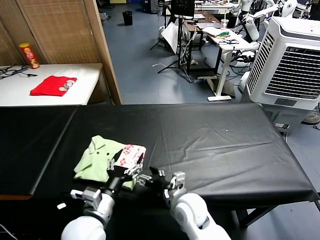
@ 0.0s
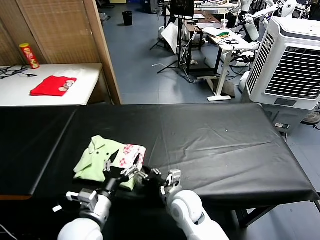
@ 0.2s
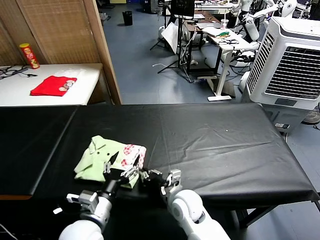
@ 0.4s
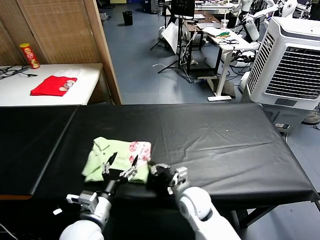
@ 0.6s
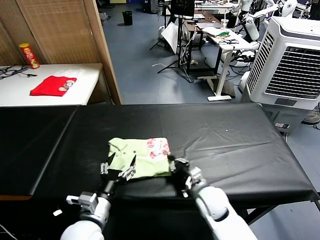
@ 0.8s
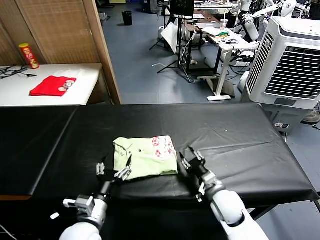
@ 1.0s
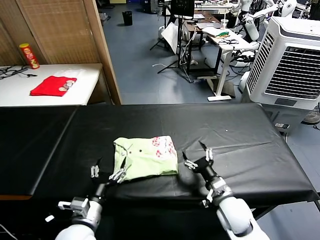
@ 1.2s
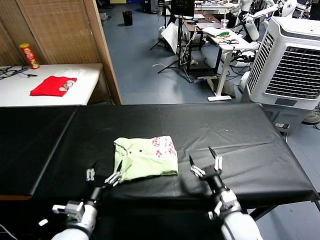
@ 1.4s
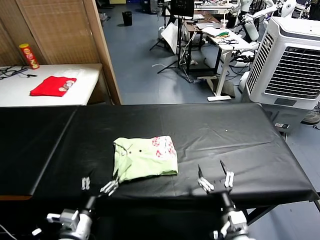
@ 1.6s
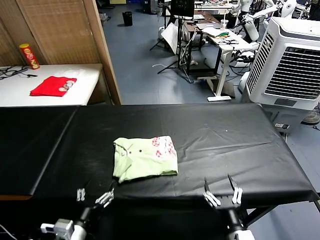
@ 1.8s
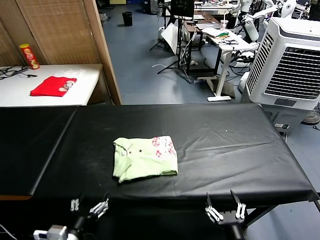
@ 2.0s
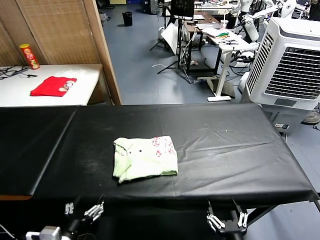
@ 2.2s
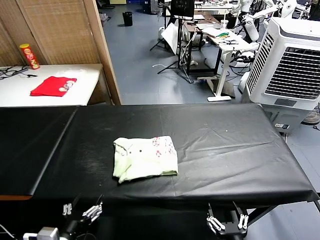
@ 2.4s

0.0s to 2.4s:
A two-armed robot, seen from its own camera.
Task of the whole recording: fold and organize the clothes.
Step, 0.0s to 0.8s: Drag the clothes to the center of the table.
0.0s to 1.2s: The right gripper travels to the right by roughly 15 cm, and closes, then opens again.
1.2s to 2.4s: The right gripper shifts about 20 cm backward, while the left gripper shifts approximately 10 cm backward and to the left.

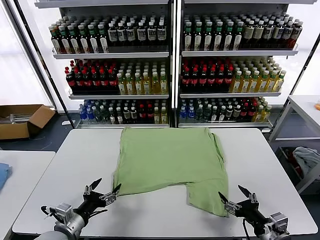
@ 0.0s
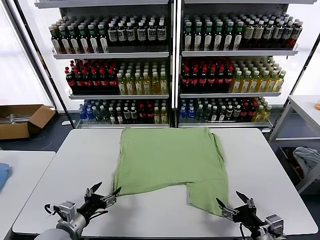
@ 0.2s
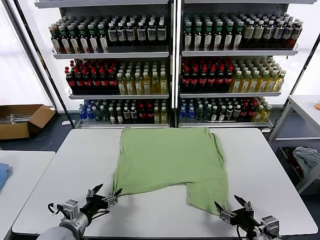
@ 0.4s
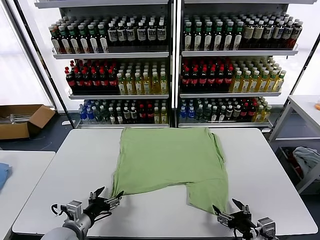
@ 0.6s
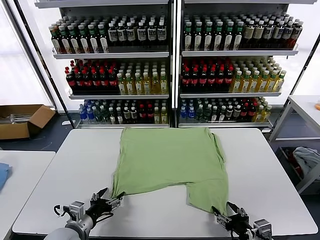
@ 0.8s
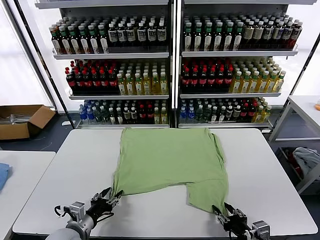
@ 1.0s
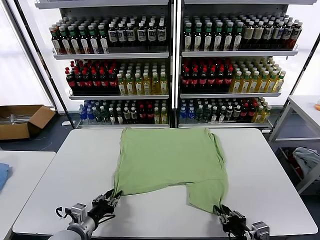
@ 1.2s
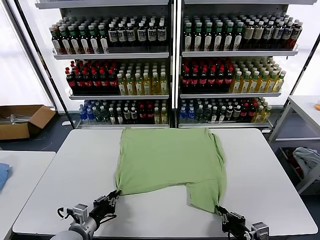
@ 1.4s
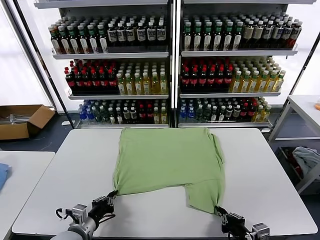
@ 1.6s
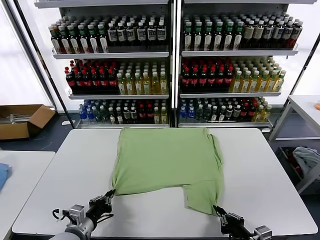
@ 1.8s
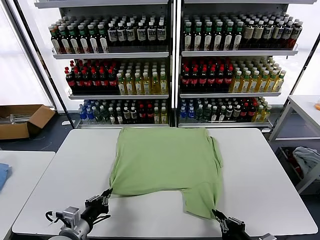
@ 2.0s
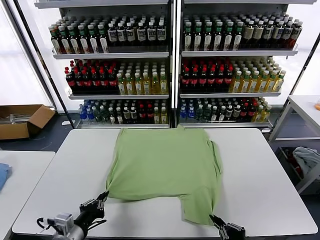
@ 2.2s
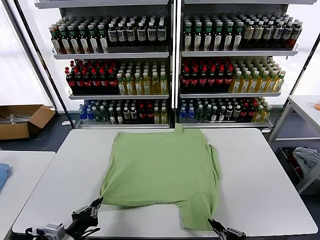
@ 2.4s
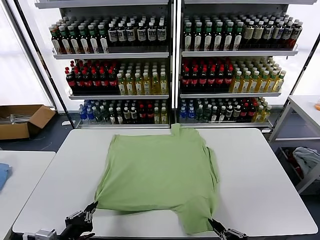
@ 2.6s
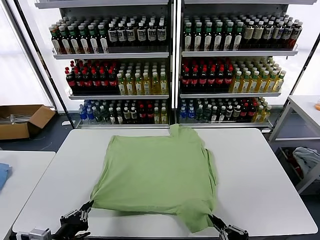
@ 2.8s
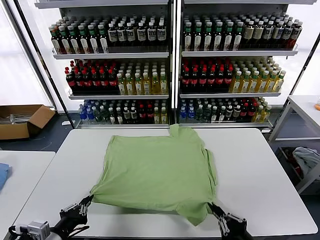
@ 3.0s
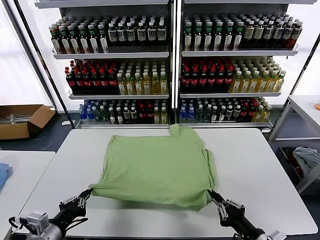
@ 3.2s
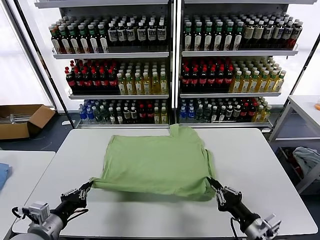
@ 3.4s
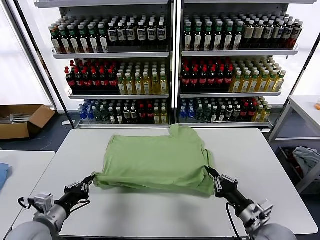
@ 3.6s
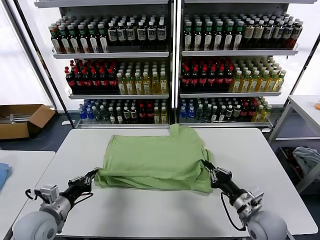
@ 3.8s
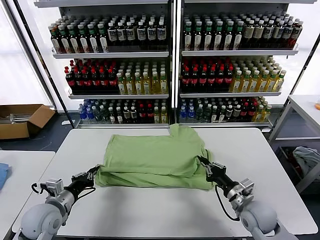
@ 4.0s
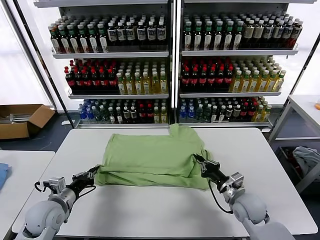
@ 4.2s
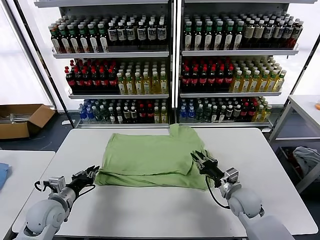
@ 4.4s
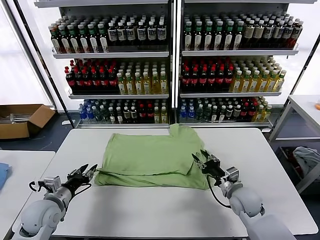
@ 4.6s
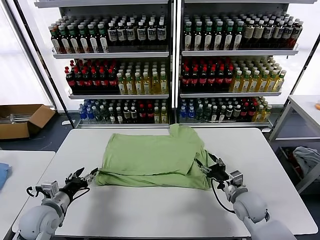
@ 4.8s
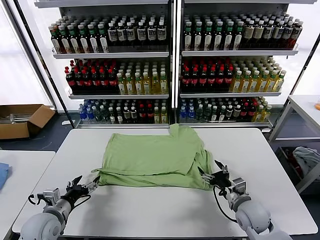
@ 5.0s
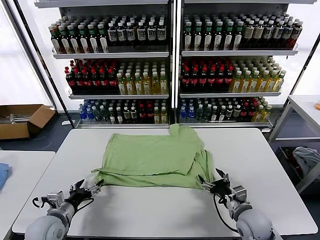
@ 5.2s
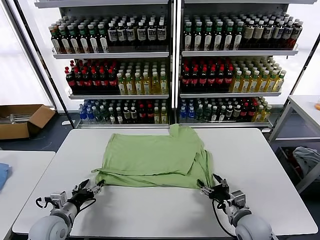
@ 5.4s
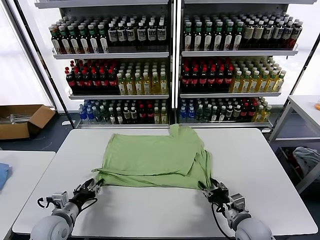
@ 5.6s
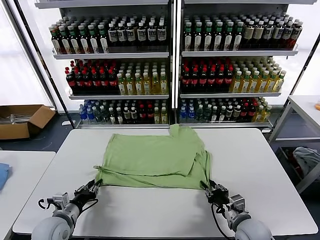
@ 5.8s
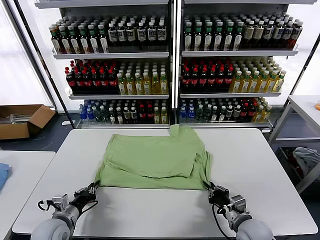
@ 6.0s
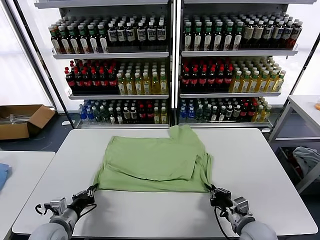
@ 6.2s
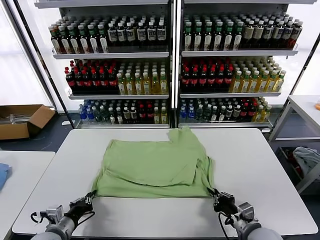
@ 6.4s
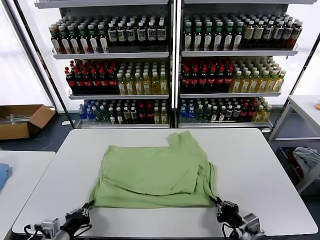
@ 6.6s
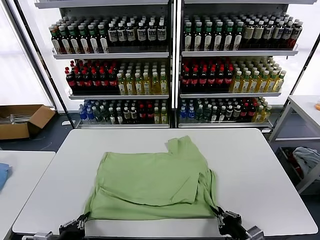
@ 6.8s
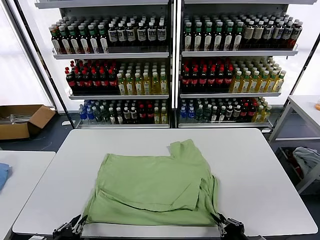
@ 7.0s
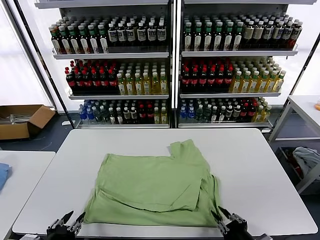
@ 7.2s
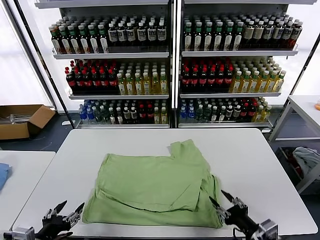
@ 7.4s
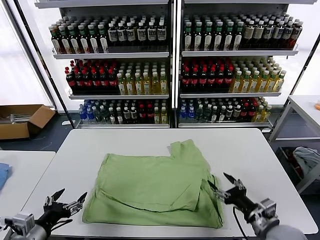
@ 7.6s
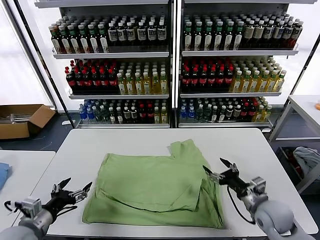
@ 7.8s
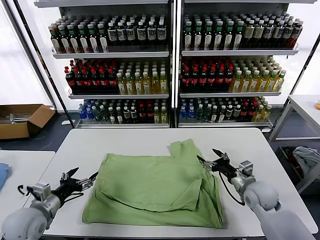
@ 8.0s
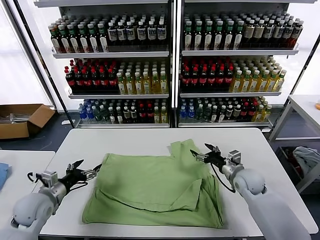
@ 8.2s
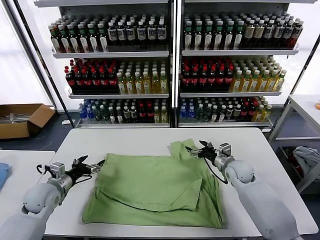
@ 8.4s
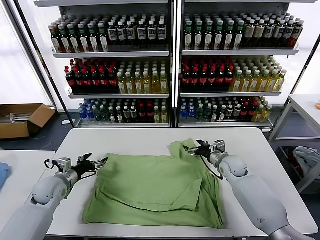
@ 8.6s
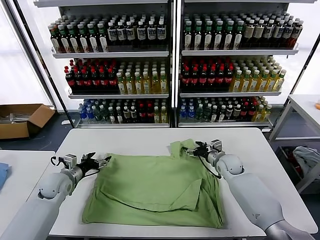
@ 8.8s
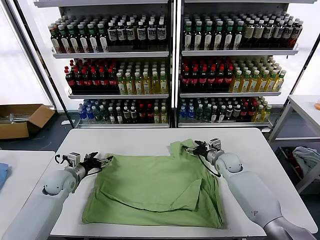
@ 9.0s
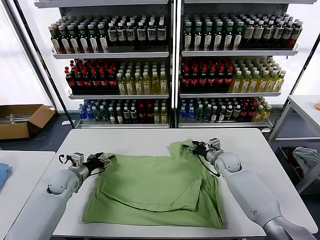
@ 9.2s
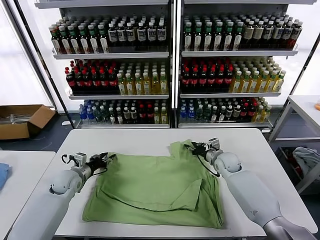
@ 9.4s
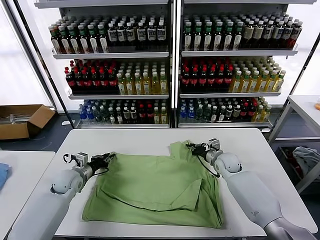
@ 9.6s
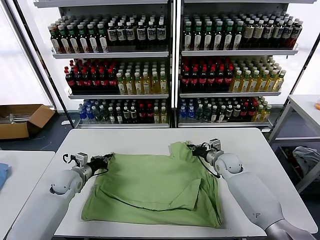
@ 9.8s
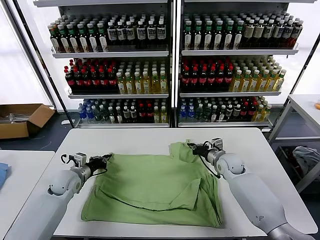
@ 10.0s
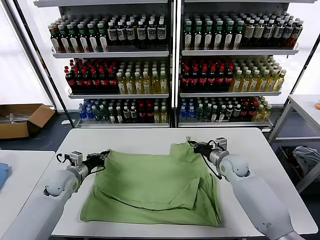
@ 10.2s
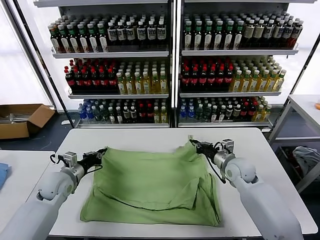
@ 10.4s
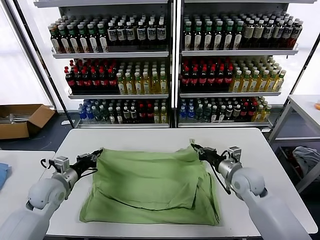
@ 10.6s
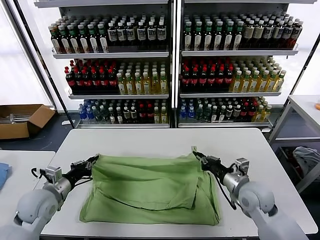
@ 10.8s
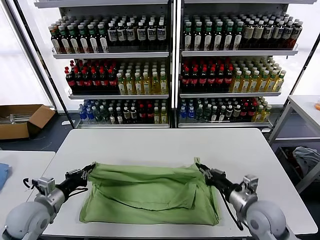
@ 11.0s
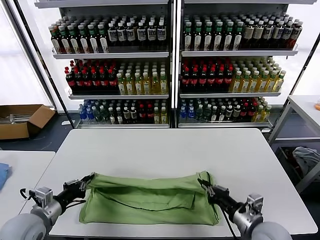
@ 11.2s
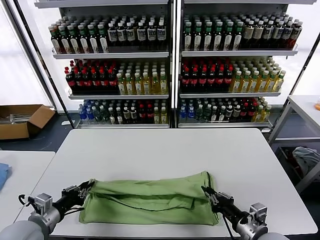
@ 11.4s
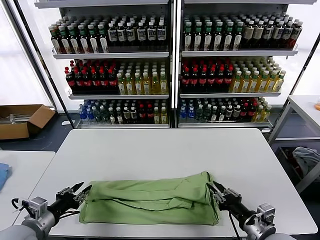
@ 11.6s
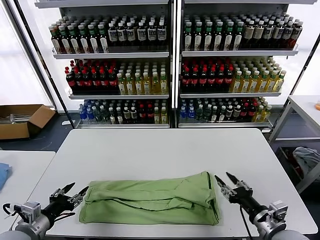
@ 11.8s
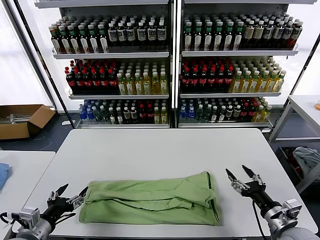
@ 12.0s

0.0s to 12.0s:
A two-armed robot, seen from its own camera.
Task of the whole recording: fold and organize the clothes.
Step, 0.0s to 1.4s: use both grippers simultaneously to clamp the lower edge of the clothing fabric.
Step, 1.6s to 4.6s: use both grippers to drag the lower edge of the fabric forward and fold it over the upper edge.
Step, 4.8s to 7.2s: Drag the clothes downward with both gripper.
Step, 7.4s to 9.8s: use both grippers simultaneously to clamp the upper edge of the clothing fabric.
Step, 10.0s to 11.6s: use both grippers to drag the upper edge of the fabric backward and fold it over the lower edge.
1.6s to 3.0s: The left gripper moves upward and backward, roughly 10 cm.
3.0s to 4.4s: Both grippers move forward, roughly 20 cm. The right gripper opens.
4.4s to 6.0s: The right gripper moves backward, approximately 10 cm, and closes its fingers. The left gripper changes place by roughly 5 cm, and opens, then closes once more.
6.0s to 7.6s: The right gripper goes some 5 cm upward, travels backward and back again, approximately 10 cm each way, and opens its fingers. Meanwhile the left gripper moves backward and upward, about 15 cm, and opens its fingers.
7.6s to 9.0s: Both grippers move forward, roughly 25 cm.
9.0s to 10.4s: The right gripper is displaced backward and upward by about 10 cm, and closes its fingers, while the left gripper closes.
10.4s to 12.0s: The left gripper moves backward, approximately 20 cm, and opens its fingers. Meanwhile the right gripper moves backward and to the right, roughly 25 cm, and opens.

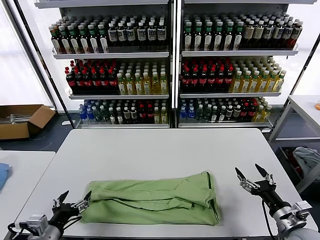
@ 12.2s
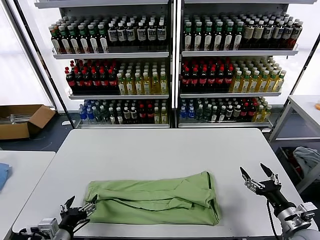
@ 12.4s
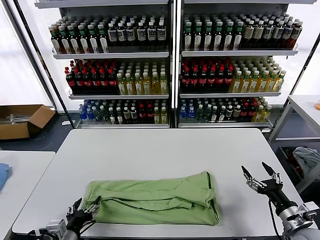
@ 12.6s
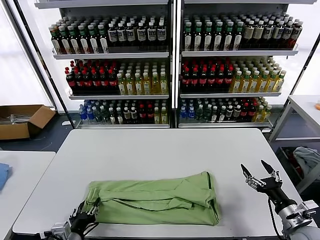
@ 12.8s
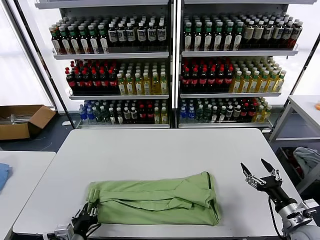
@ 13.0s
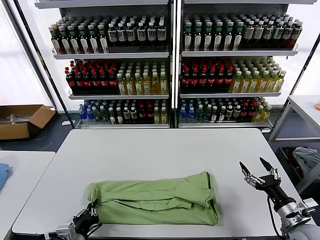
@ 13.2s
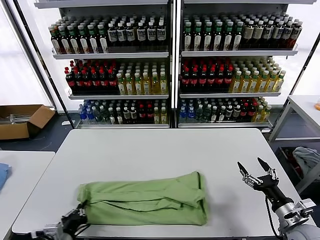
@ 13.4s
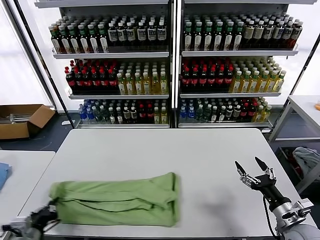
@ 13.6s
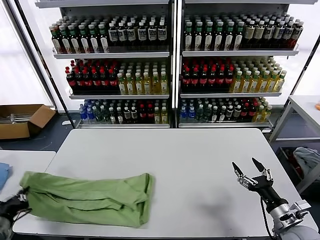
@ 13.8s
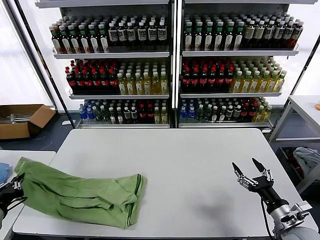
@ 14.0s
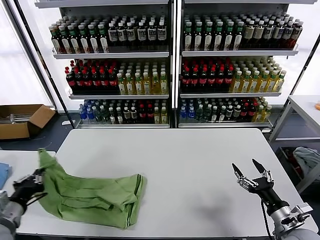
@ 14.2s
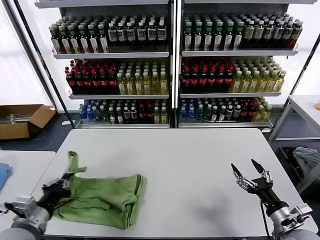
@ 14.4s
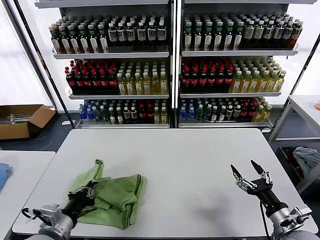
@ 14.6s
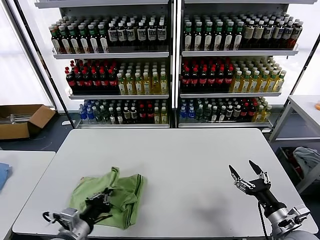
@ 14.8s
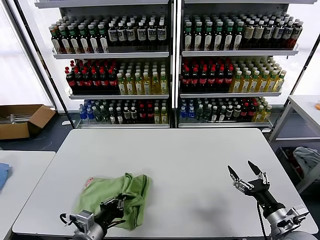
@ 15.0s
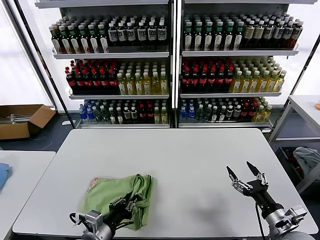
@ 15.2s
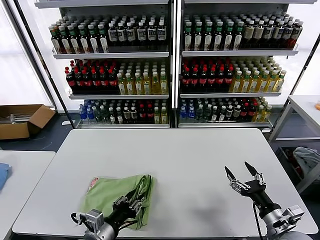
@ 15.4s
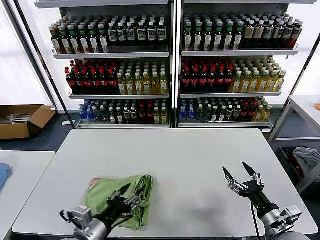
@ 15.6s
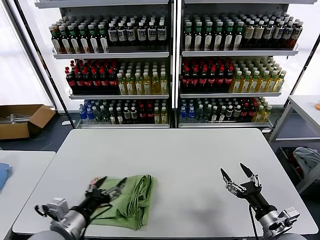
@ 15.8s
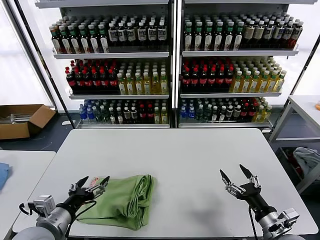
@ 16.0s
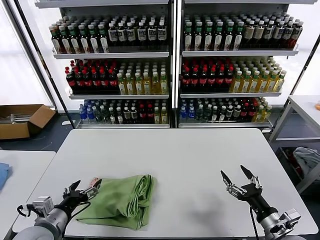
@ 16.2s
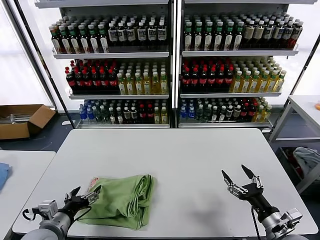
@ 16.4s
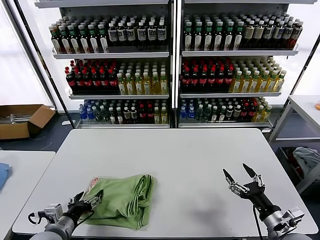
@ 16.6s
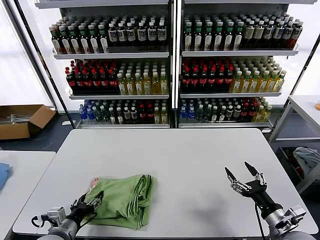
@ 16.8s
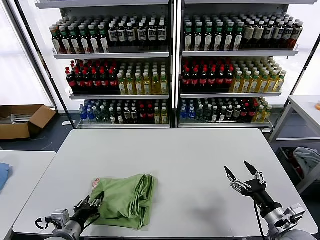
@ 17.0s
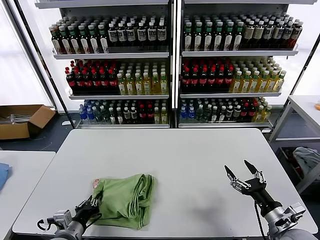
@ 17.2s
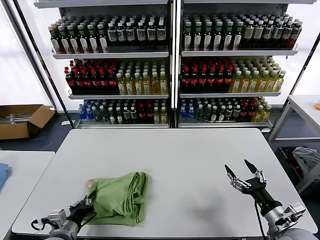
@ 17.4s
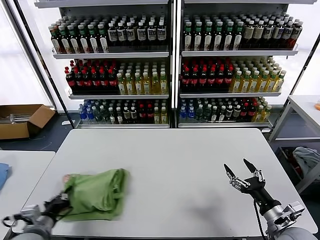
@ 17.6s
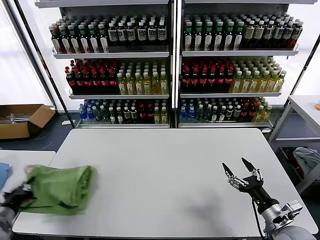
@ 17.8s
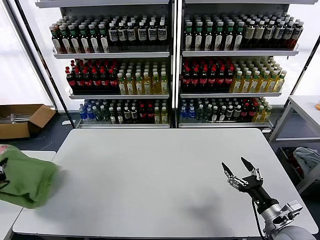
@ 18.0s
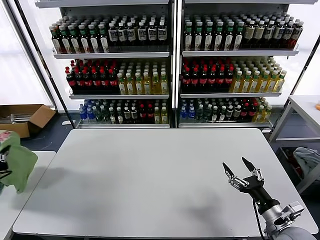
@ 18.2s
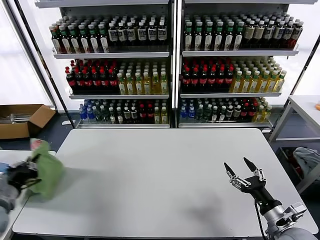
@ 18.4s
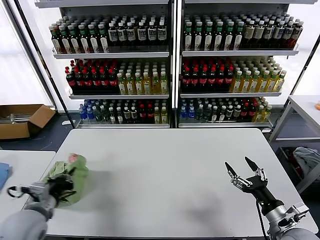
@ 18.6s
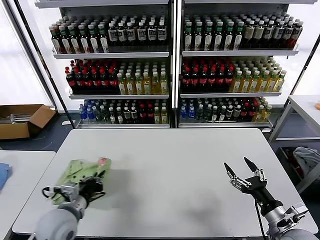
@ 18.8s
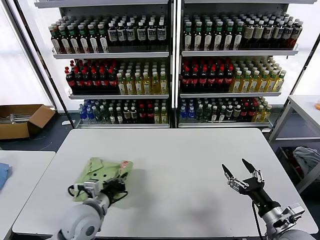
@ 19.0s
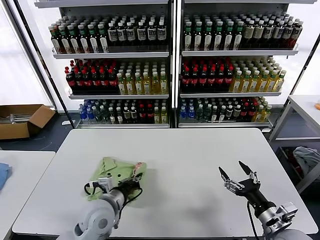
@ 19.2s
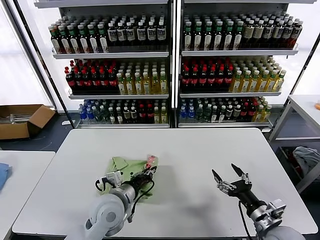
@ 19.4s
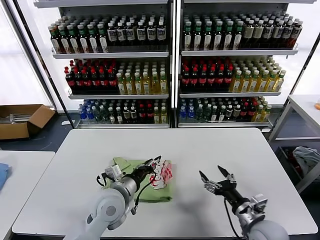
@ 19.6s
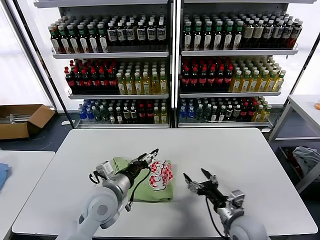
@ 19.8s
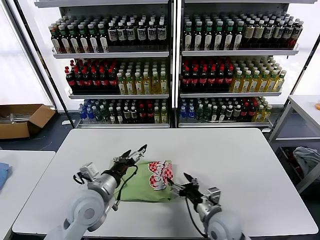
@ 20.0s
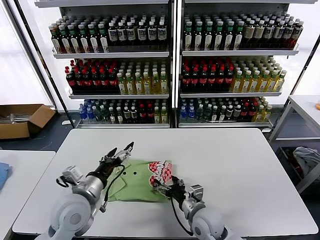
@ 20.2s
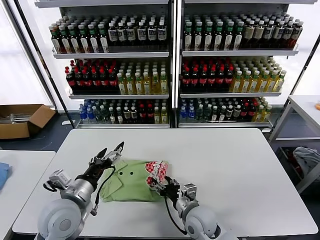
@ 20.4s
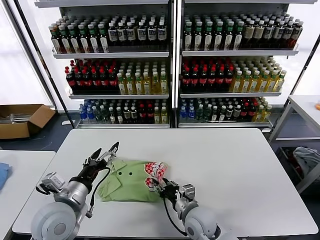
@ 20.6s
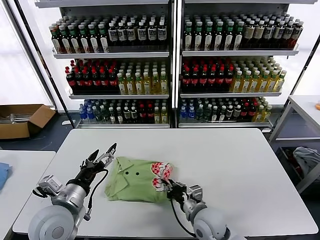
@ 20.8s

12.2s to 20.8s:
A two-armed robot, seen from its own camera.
Task of the whole recording: fold and organize the clothes.
Step, 12.2s to 13.2s: use the left gripper to clamp the left edge of the fabric.
Step, 13.4s to 15.6s: use the left gripper to drag the left edge of the fabric to the left and folds it over the right edge.
Step, 15.8s to 19.6s: Flip the folded clothes over with left gripper.
12.2s to 13.6s: The left gripper closes.
13.6s to 15.0s: The left gripper is displaced to the right by some 15 cm.
15.0s to 16.6s: The left gripper shifts roughly 10 cm to the left, and opens.
16.6s to 18.0s: The left gripper goes about 20 cm to the left and upward, and closes.
18.0s to 19.4s: The left gripper is displaced to the right by approximately 35 cm.
19.4s to 20.8s: The left gripper is displaced to the left and upward by approximately 10 cm, and opens its fingers; the right gripper goes approximately 20 cm to the left, and closes.
